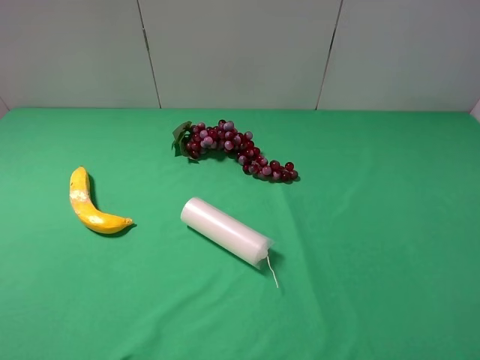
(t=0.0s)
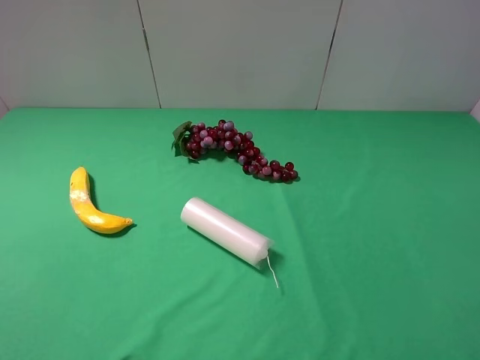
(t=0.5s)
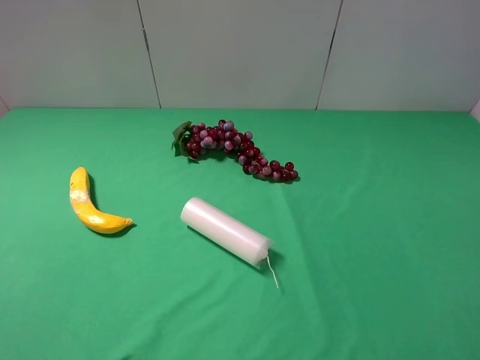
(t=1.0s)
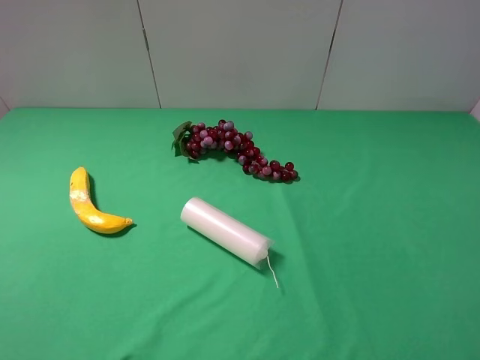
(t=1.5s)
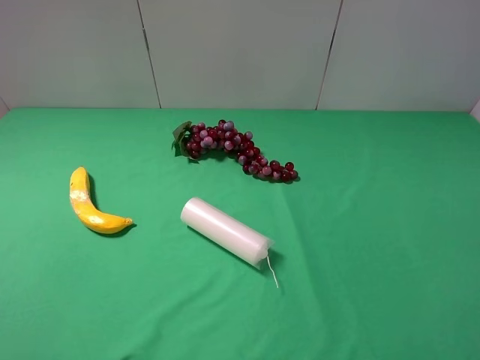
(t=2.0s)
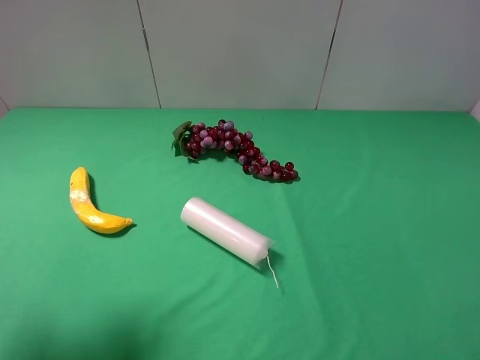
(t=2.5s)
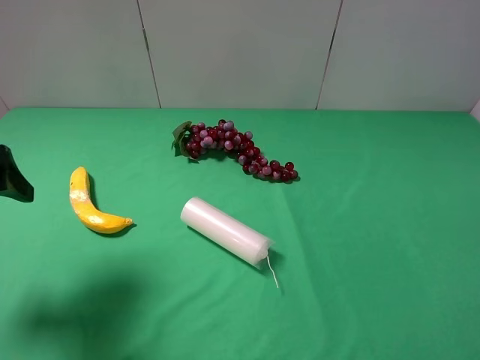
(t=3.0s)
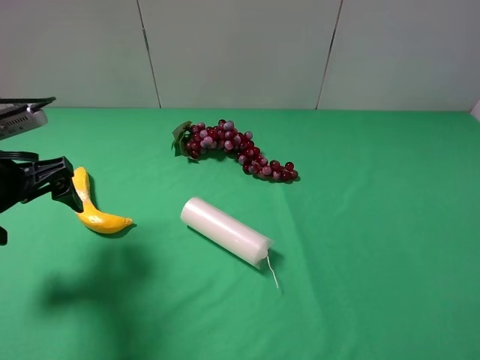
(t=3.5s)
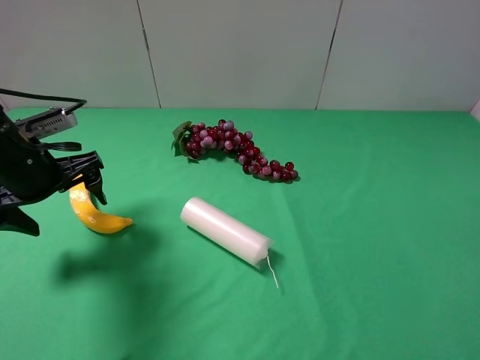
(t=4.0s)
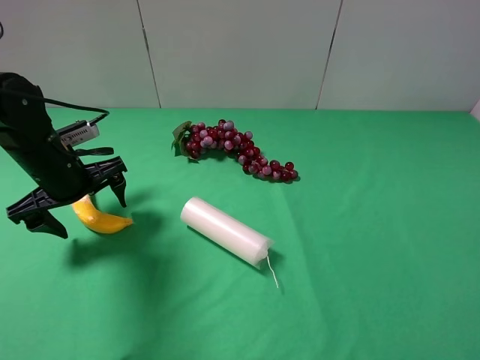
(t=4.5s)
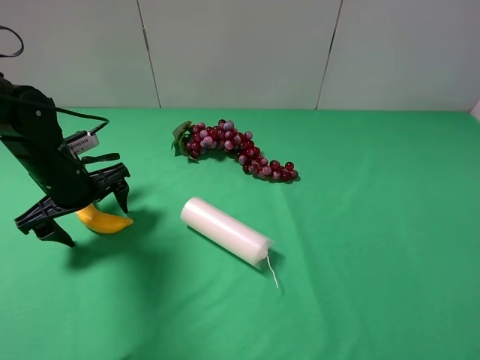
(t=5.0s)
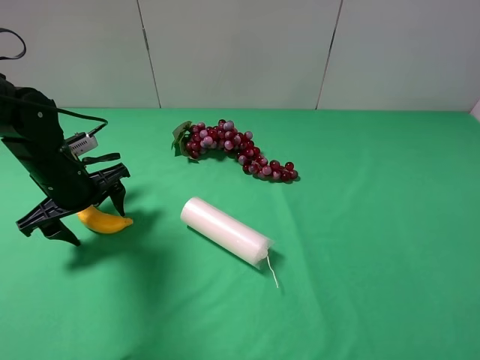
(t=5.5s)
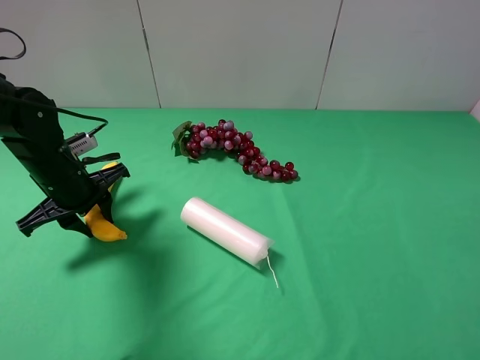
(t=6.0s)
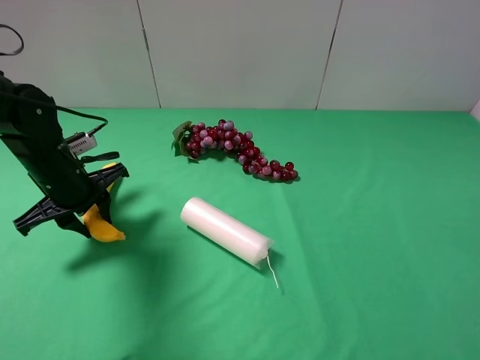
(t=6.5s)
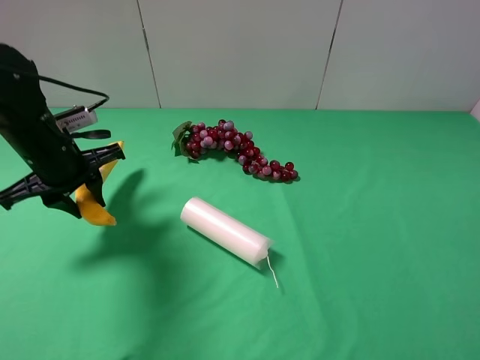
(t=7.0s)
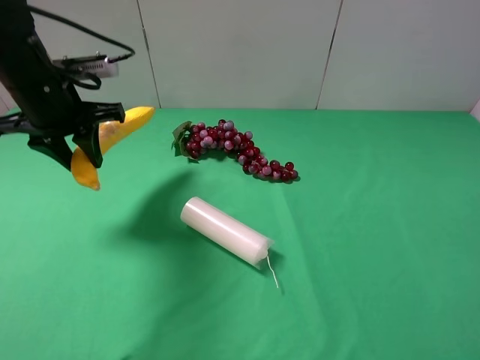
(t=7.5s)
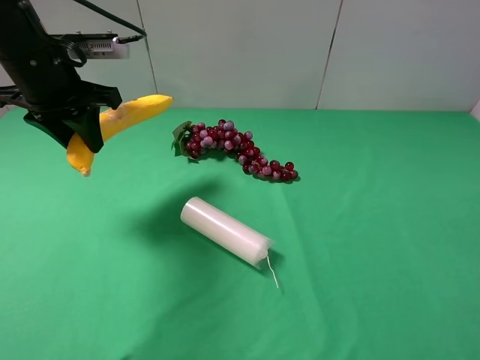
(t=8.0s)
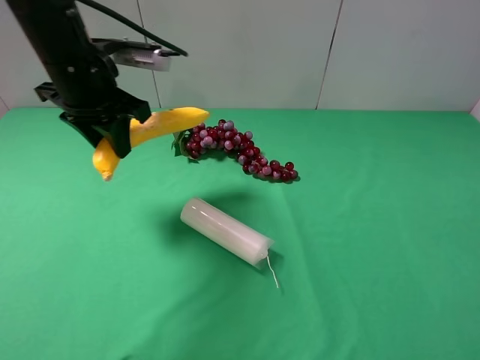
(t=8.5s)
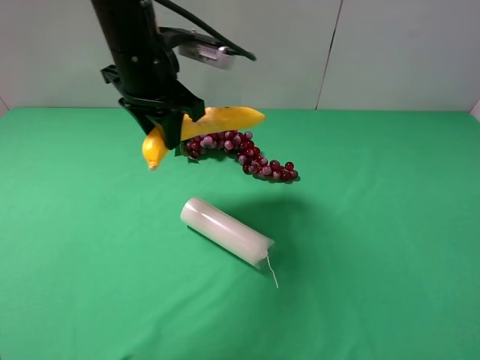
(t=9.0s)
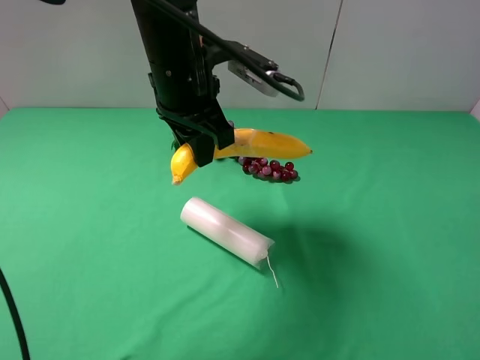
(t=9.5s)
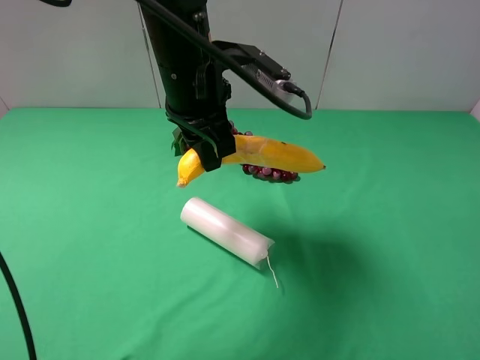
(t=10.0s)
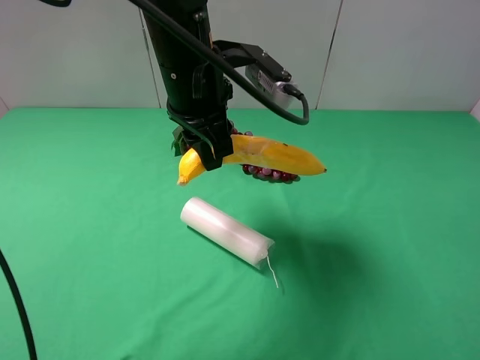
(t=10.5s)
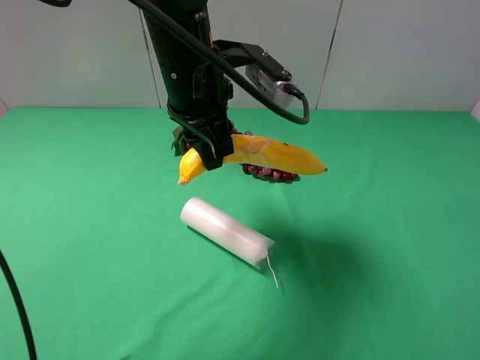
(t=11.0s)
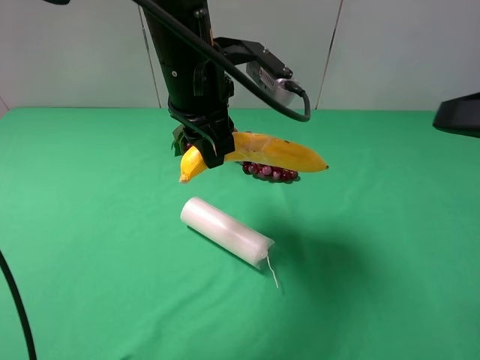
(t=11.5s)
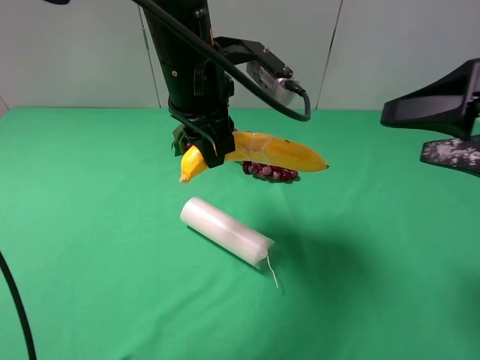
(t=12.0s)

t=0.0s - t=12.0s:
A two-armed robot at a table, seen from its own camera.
Task of the whole recording: use the left gripper to pick up the item and transfer it from the left gripper to the right gripper.
Step, t=0.0s - t=6.0s: Use the left gripper to grab the banana on the left side of the table.
t=2.0s - t=4.0s: The left gripper travels forward and downward by approximately 25 cm.
t=4.0s - t=6.0s: The left gripper shifts roughly 5 cm downward, and closes its fingers.
t=6.0s - t=8.0s: The left gripper travels upward by about 15 cm.
t=8.0s - t=10.0s: The left gripper shifts roughly 20 cm to the right.
t=10.0s - t=12.0s: The right gripper travels forward by roughly 15 cm.

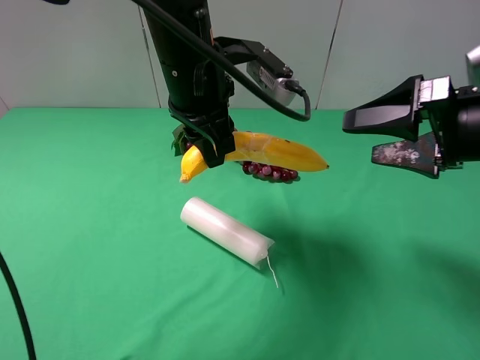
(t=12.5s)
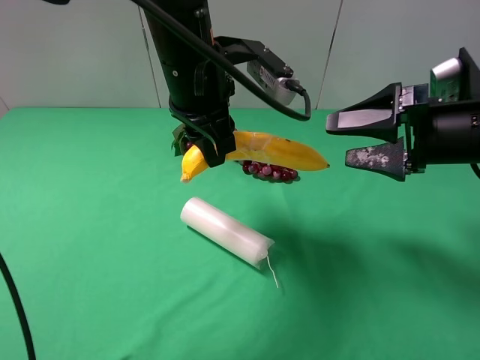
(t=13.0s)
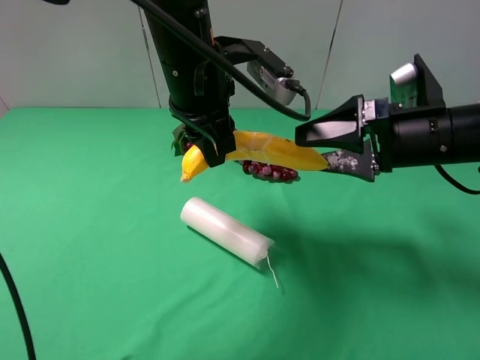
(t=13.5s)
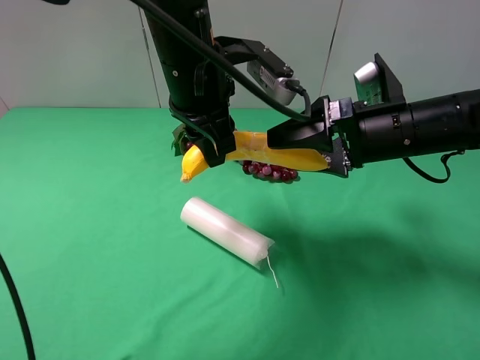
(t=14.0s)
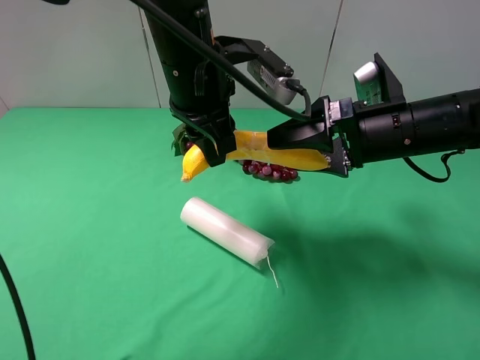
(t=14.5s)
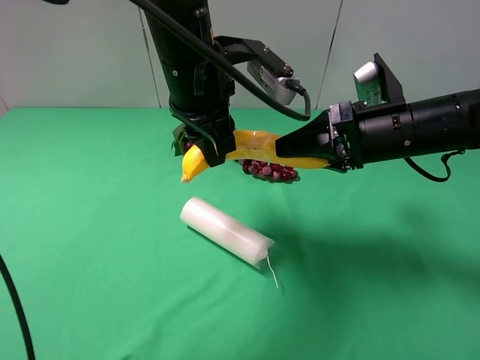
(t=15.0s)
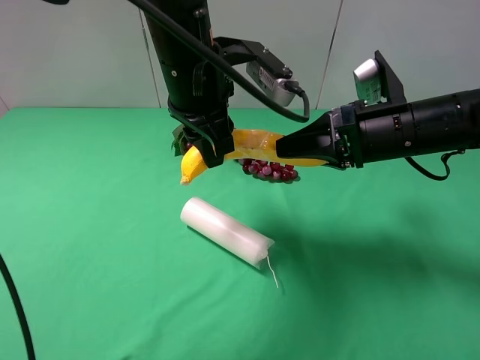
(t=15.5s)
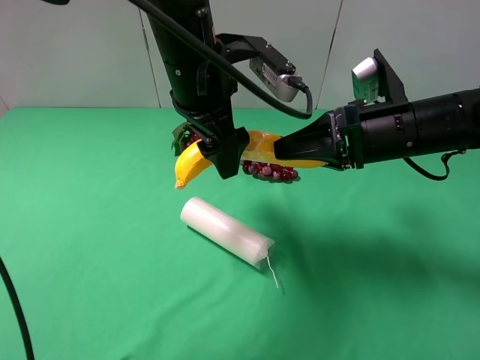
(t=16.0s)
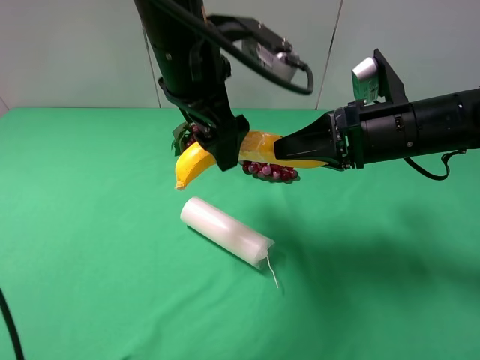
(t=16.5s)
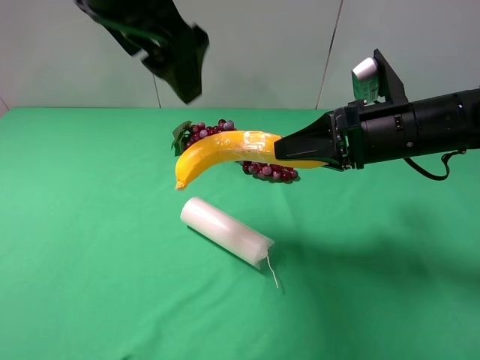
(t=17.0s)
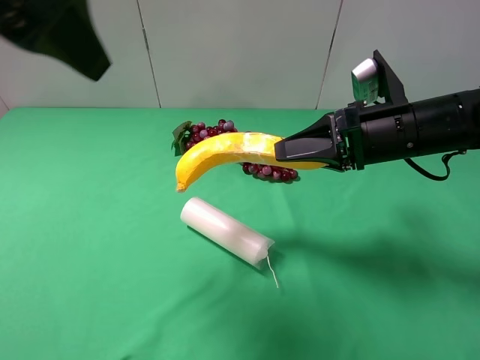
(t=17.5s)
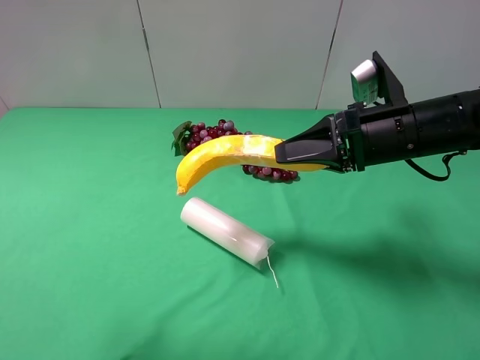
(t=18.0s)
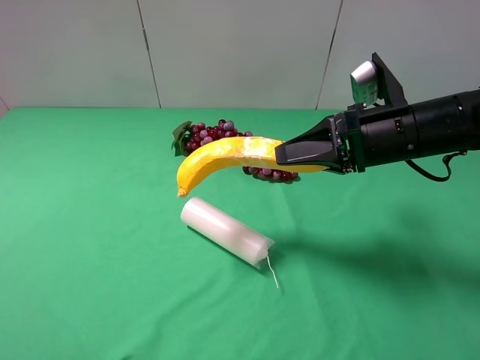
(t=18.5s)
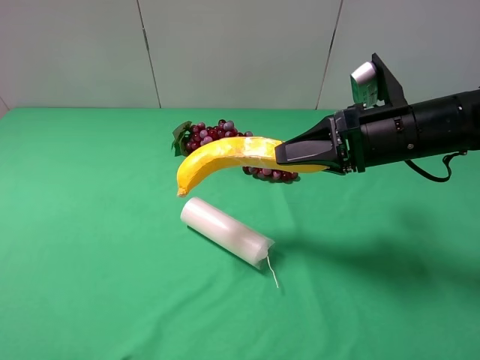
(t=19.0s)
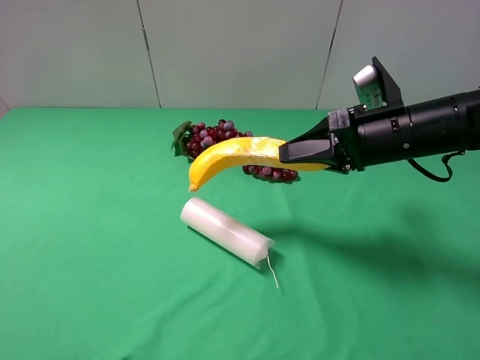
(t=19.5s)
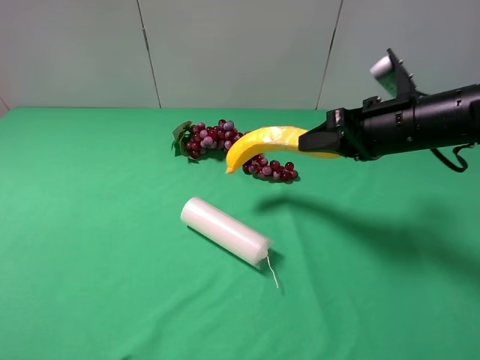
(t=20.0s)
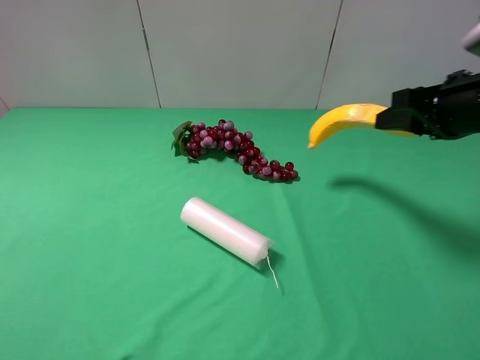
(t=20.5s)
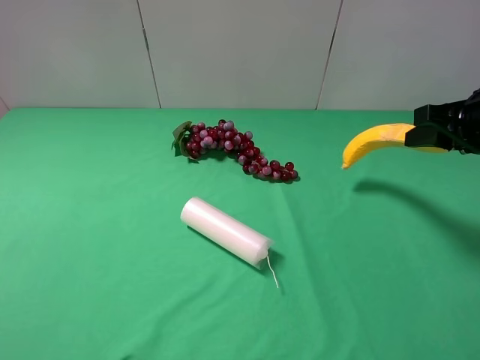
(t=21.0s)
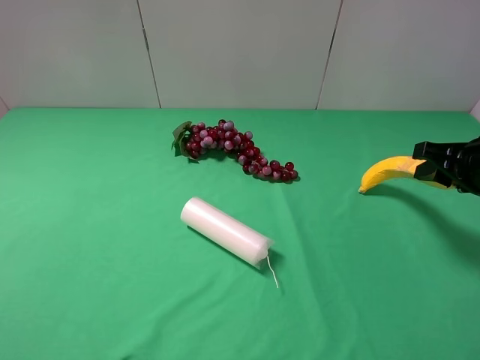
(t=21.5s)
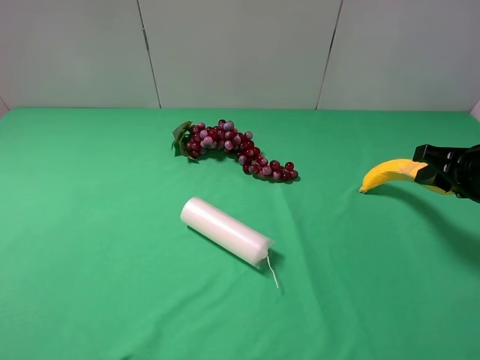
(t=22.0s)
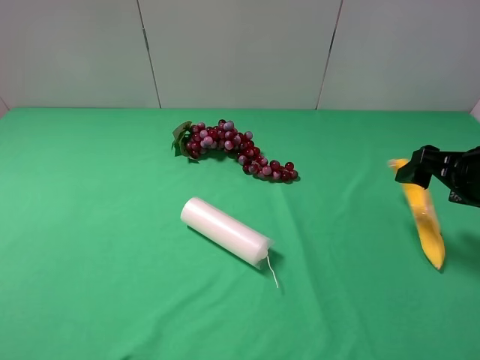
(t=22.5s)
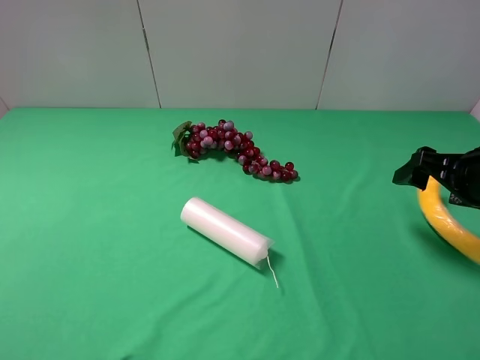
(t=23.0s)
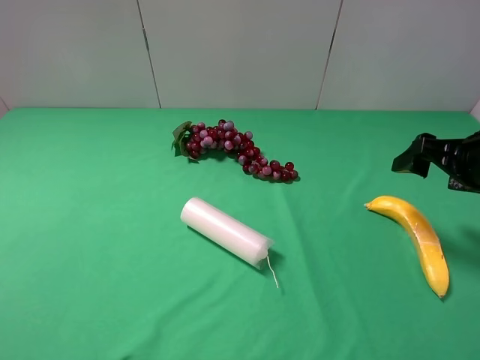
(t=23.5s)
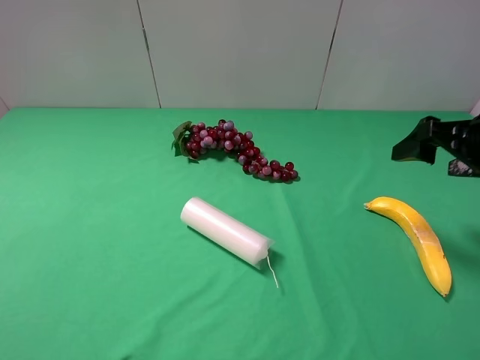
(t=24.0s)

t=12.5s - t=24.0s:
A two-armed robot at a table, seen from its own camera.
Task of the whole recording: use the left gripper to pick up the item and transfer it from the left gripper to the right gripper.
Step, t=12.5s - t=16.0s: Pass the banana to the right gripper.
Step, t=16.5s - t=23.5s: The right gripper places banana on the right side of the table.
t=12.5s - t=14.5s: The right gripper travels to the left and forward by roughly 10 cm.
t=14.5s - t=16.5s: The right gripper closes up. Meanwhile the left gripper opens.
t=16.5s - t=18.5s: The left gripper moves to the left and backward, roughly 40 cm.
t=20.0s - t=22.0s: The right gripper travels to the right by roughly 10 cm.
t=22.0s - t=24.0s: The right gripper changes place by approximately 5 cm, and opens its fingers.

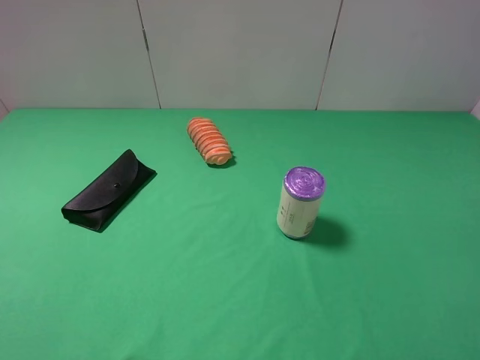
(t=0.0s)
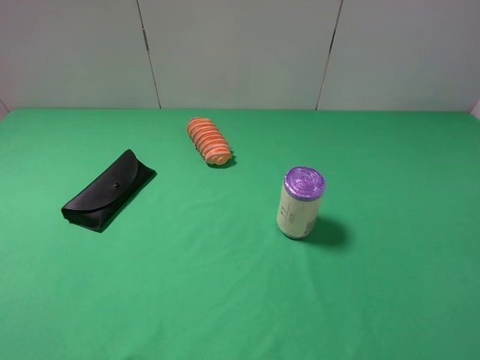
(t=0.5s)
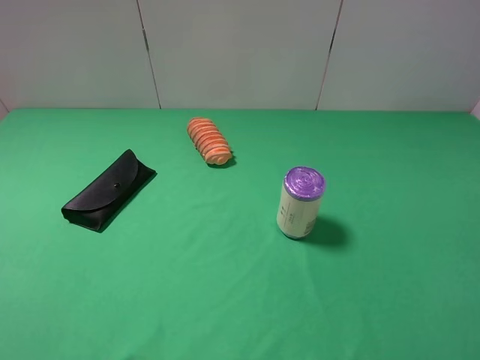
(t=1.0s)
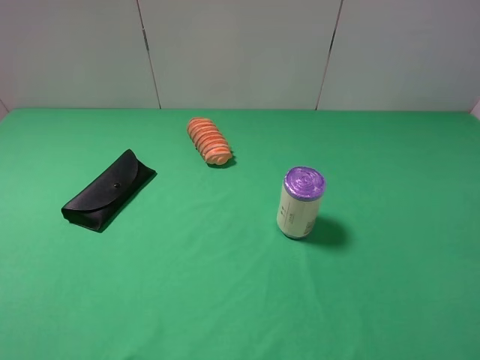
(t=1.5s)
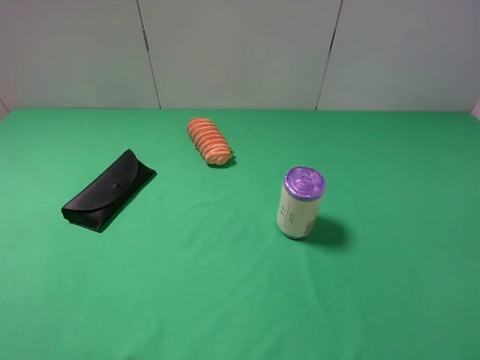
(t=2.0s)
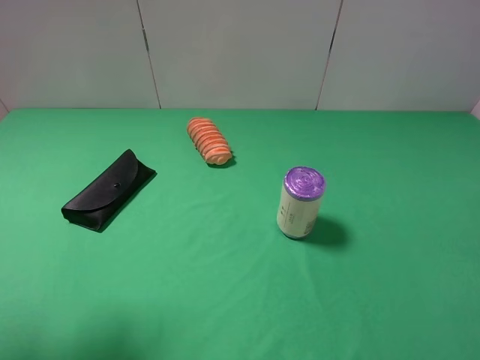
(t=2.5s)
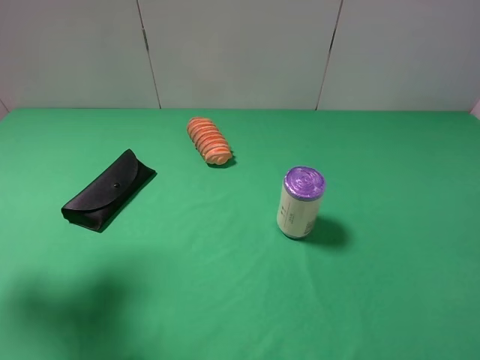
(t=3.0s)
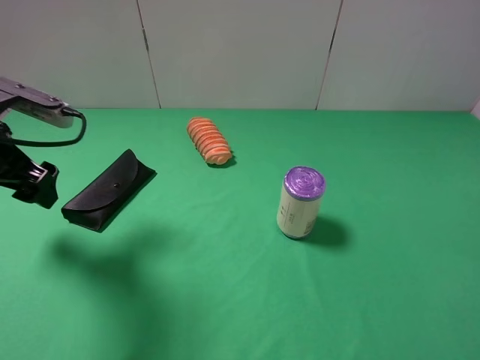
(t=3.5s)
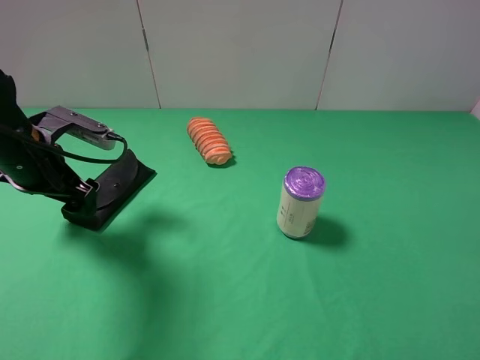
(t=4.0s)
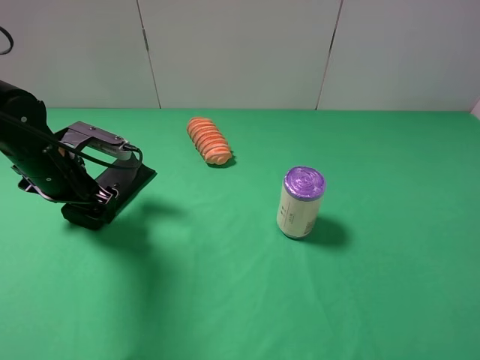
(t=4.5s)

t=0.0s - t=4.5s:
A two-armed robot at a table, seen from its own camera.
Task of the whole recording: use the left gripper to pick up the item and transfer it from the left gripper to the right gripper.
t=2.0s - t=4.5s: The left gripper heads forward and downward, covering roughly 30 cm.
